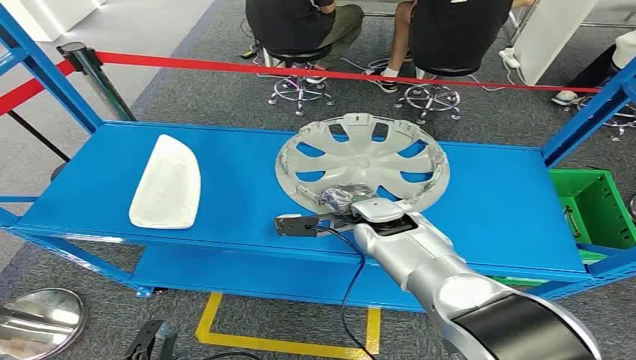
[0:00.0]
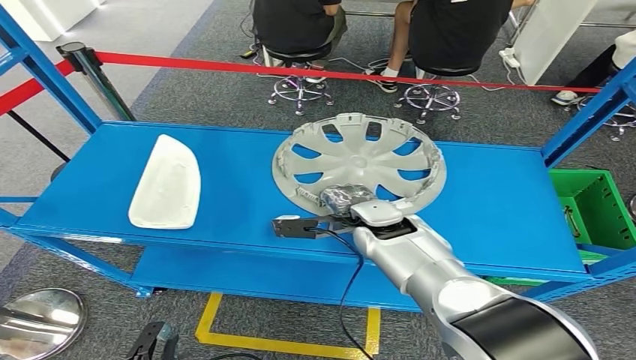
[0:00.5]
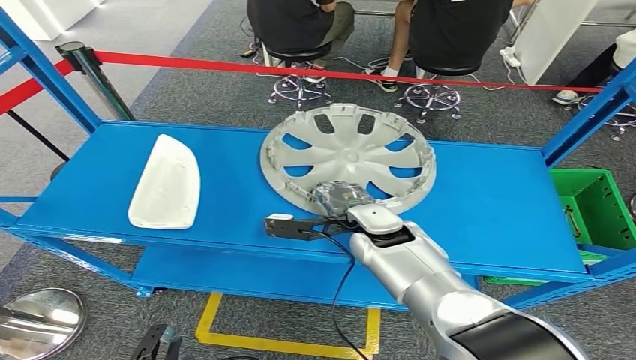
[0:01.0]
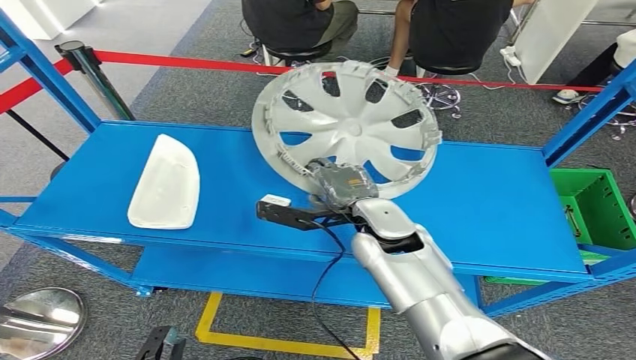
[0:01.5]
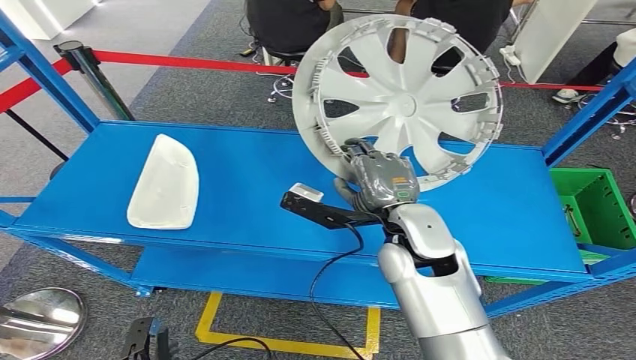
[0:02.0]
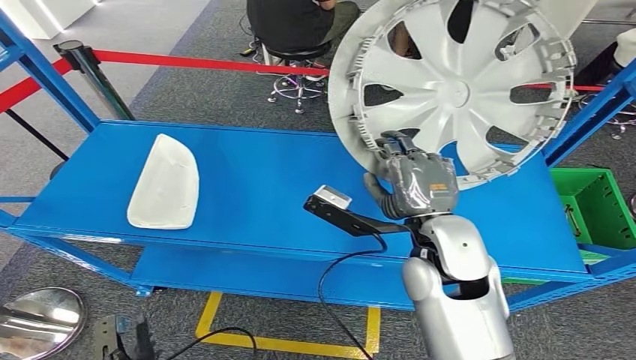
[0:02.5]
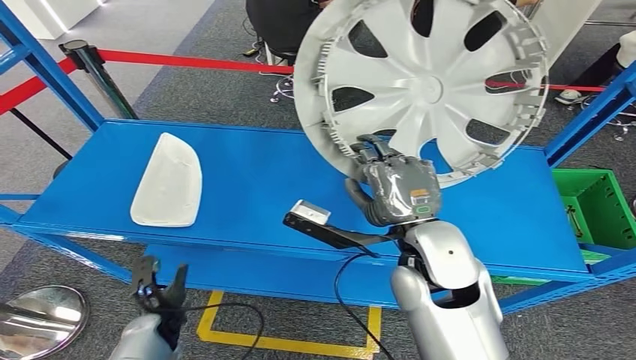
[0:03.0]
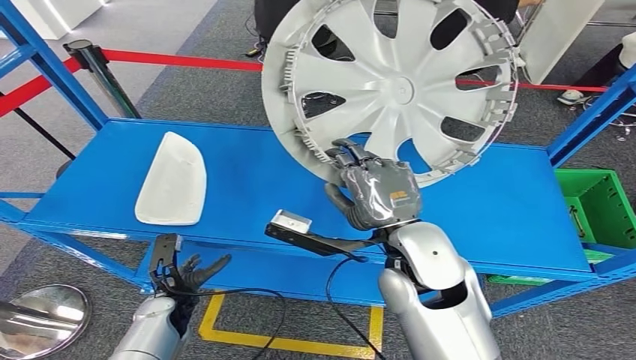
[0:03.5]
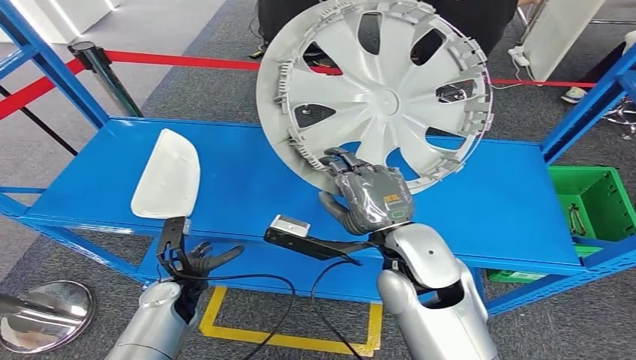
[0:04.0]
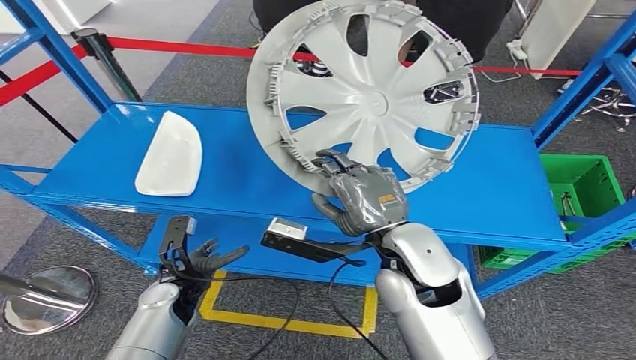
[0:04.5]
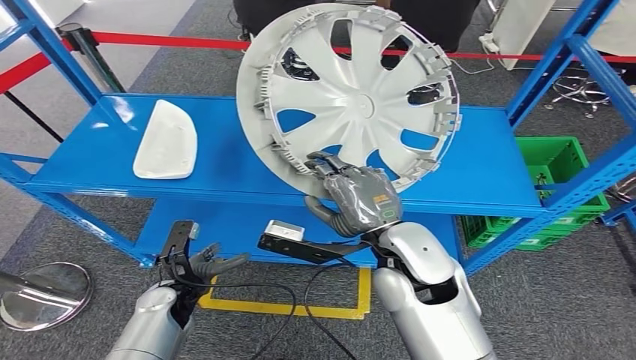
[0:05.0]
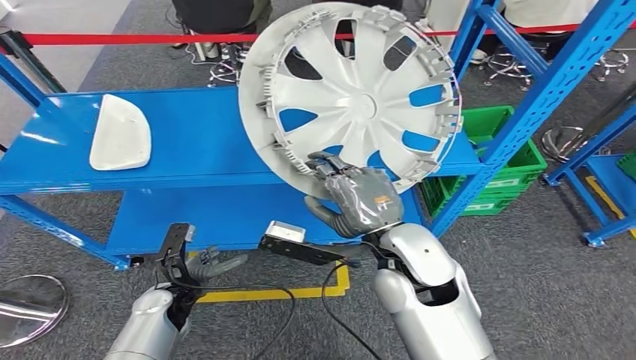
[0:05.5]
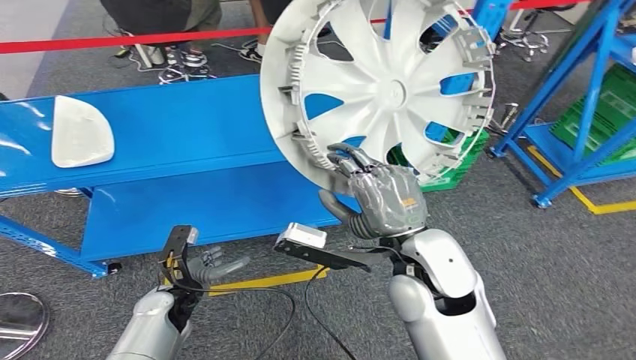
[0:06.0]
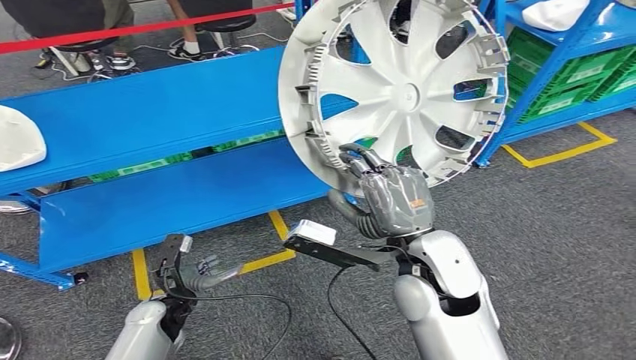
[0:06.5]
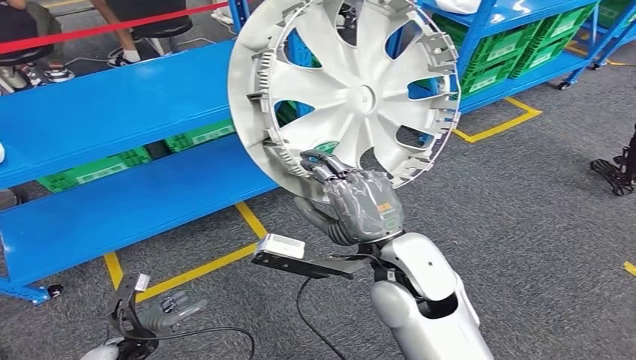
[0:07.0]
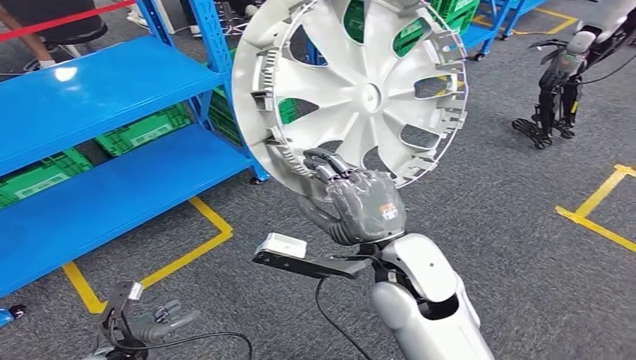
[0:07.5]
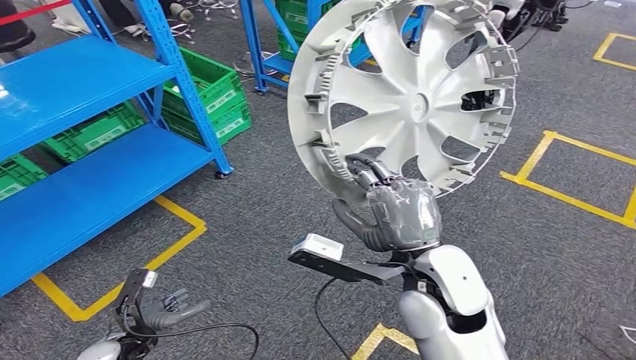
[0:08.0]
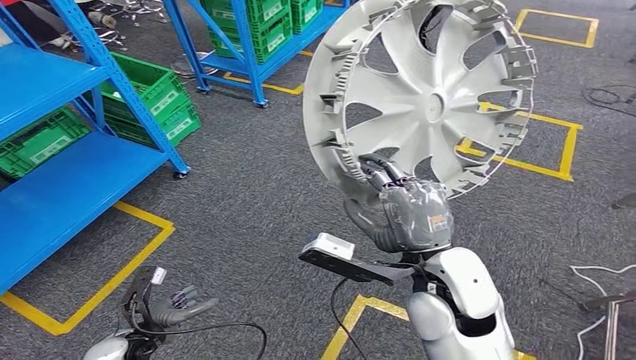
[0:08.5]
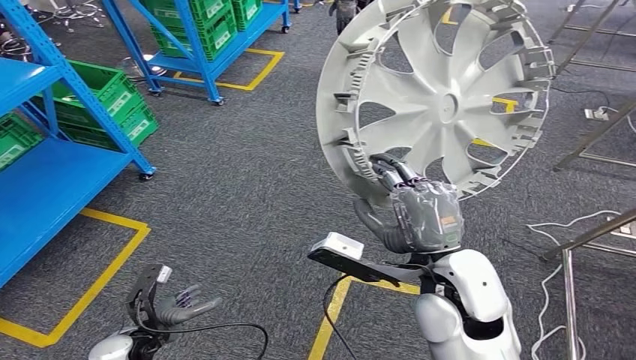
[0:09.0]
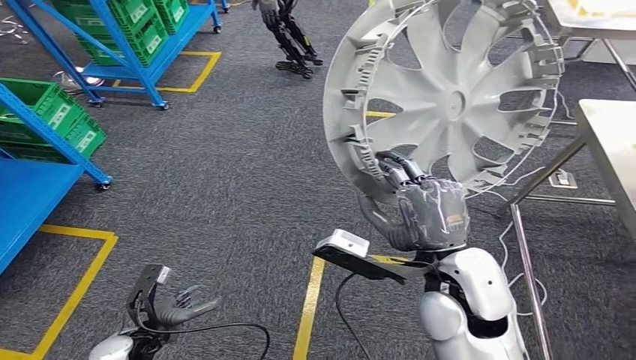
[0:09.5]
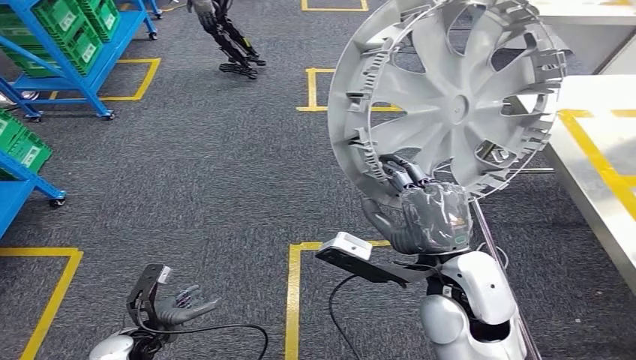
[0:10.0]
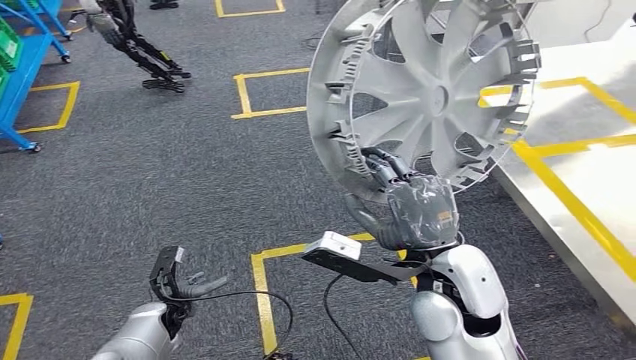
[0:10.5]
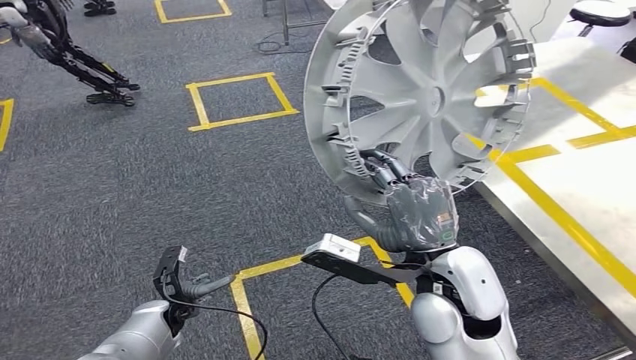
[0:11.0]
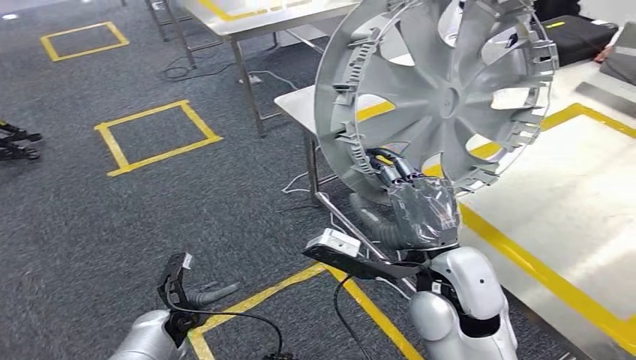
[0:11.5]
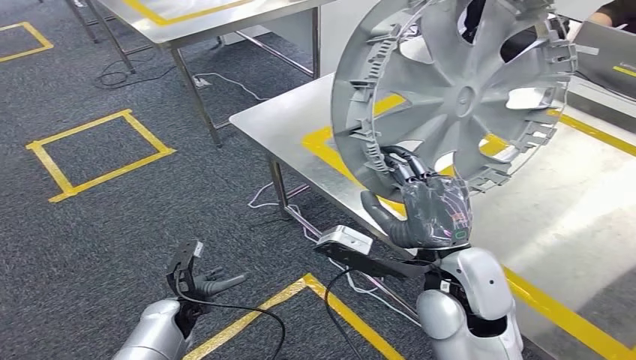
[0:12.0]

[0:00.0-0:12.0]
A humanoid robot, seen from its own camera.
Step, 0:00.0 to 0:03.5: Pick up the small parts from the shelf.

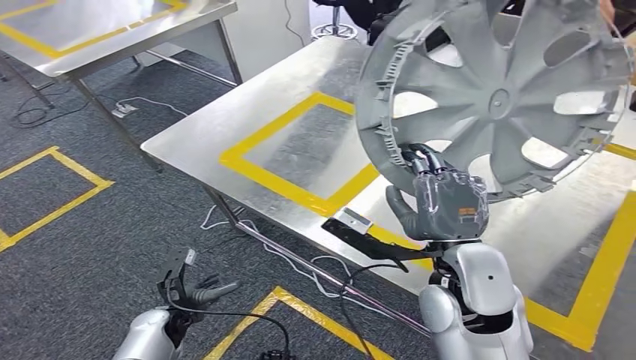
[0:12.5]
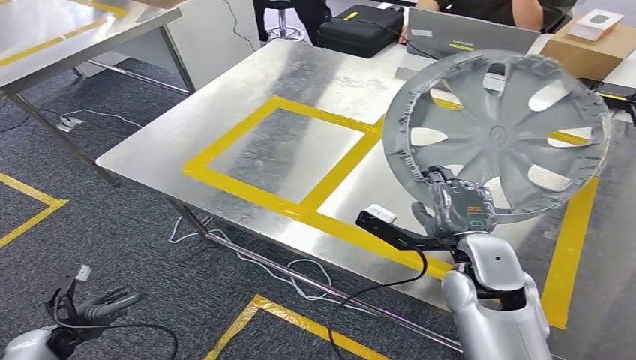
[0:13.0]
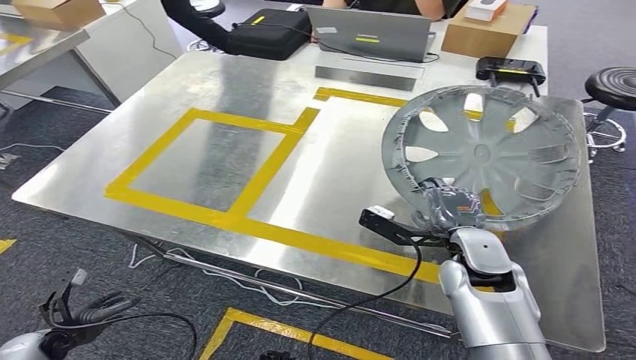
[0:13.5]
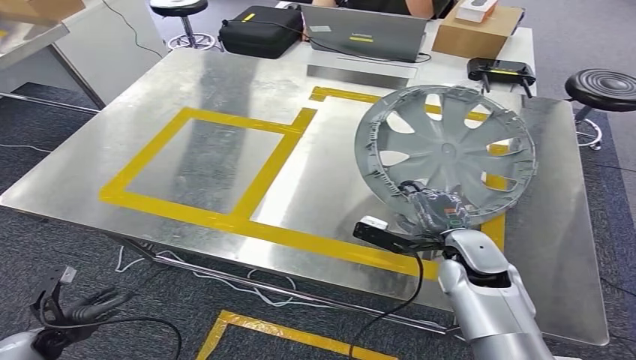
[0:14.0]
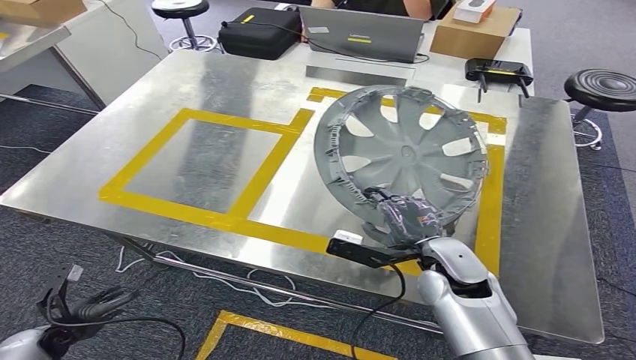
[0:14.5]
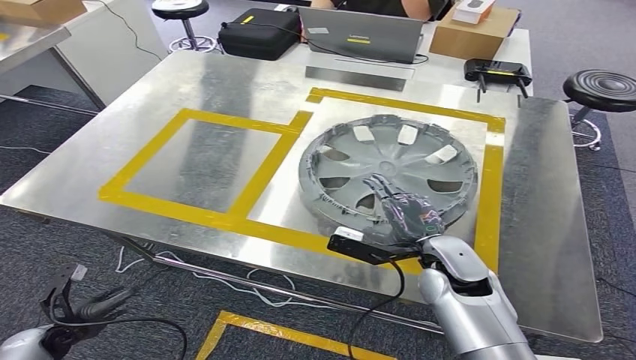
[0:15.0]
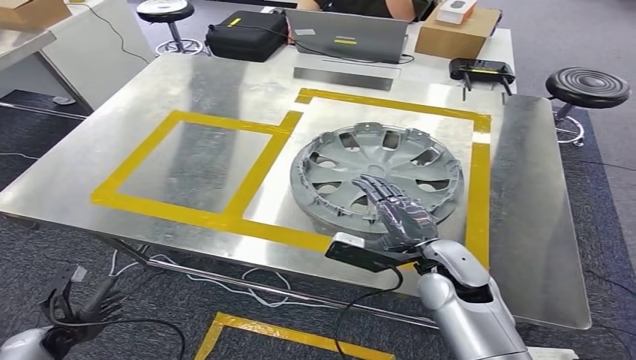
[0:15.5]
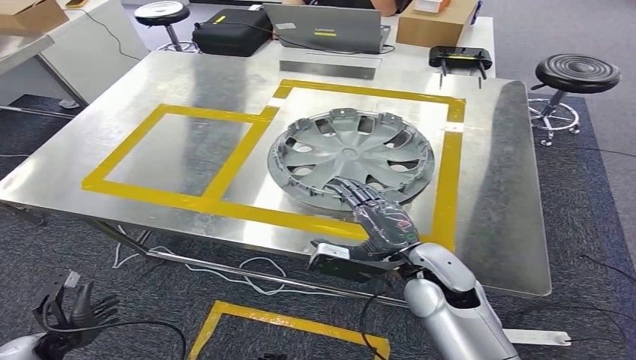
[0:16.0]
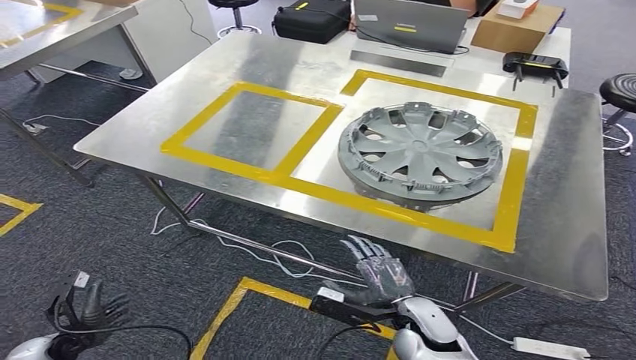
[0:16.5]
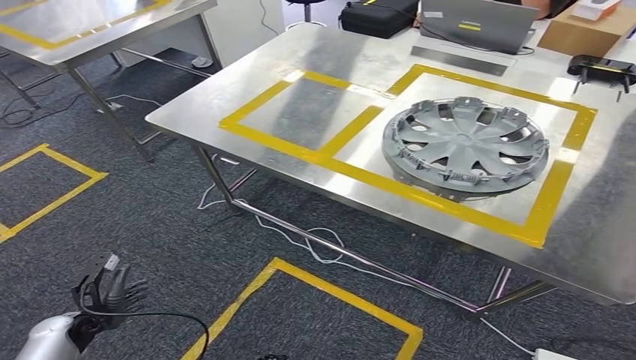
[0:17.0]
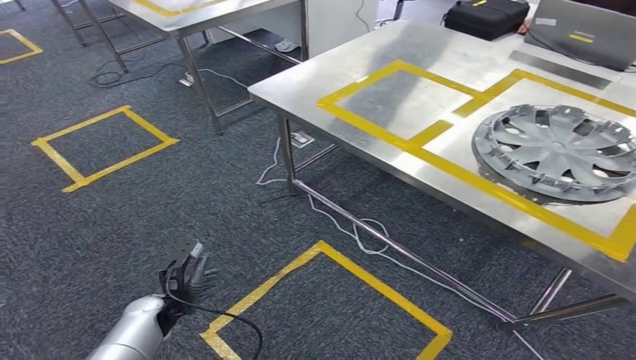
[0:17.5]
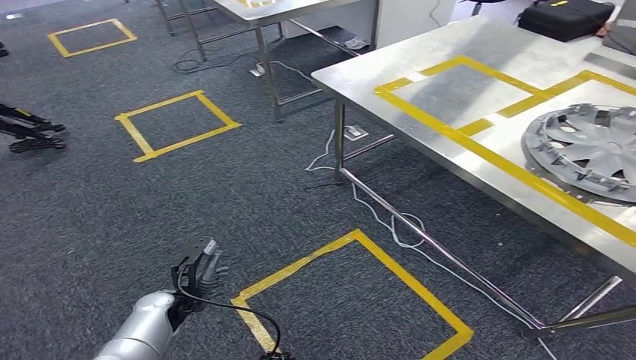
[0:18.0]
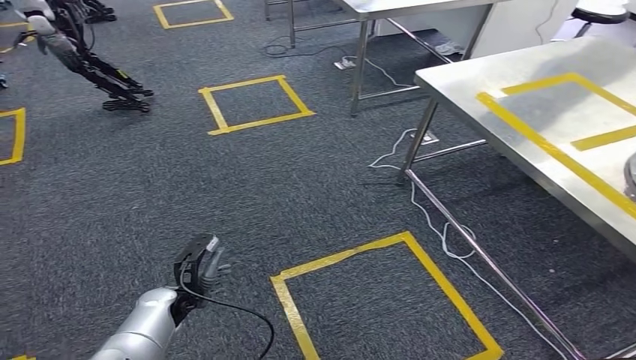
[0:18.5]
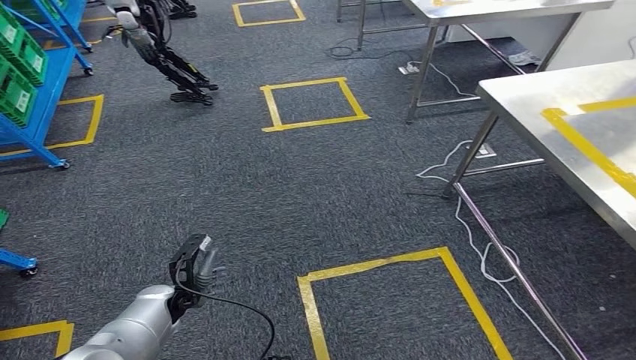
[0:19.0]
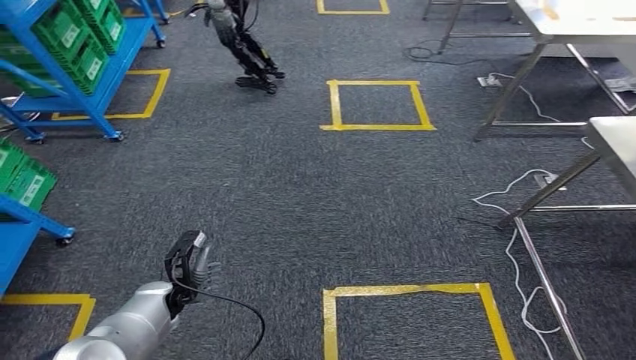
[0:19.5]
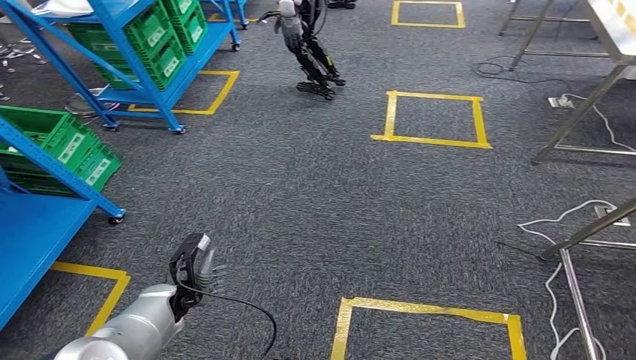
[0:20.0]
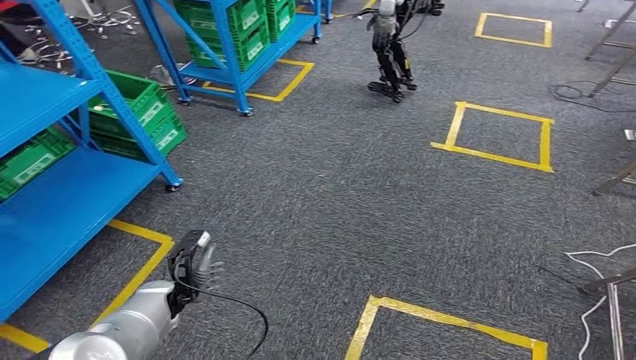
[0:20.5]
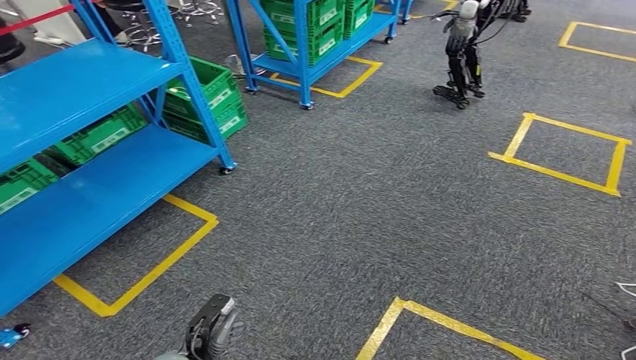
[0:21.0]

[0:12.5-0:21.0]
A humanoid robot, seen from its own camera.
Step, 0:13.0 to 0:17.5: Insert the small parts into the corresponding slots on the workbench.
Step, 0:18.0 to 0:21.0: Return to the initial position at the workbench.
